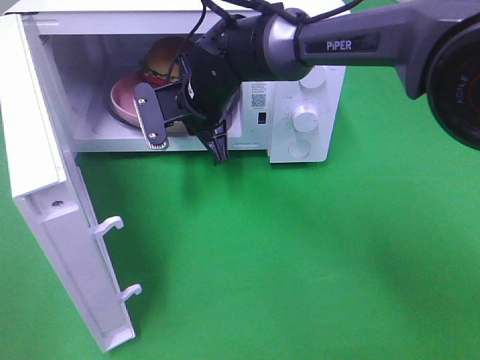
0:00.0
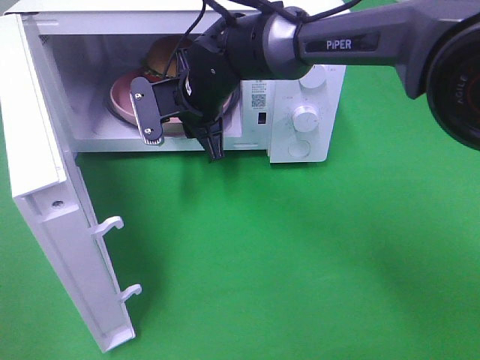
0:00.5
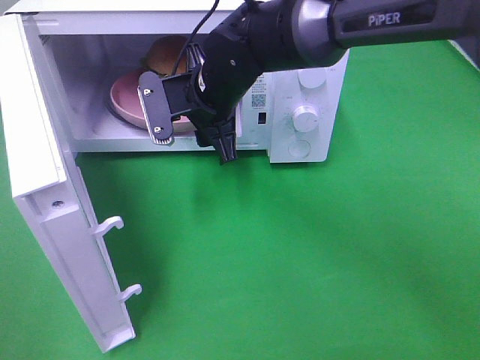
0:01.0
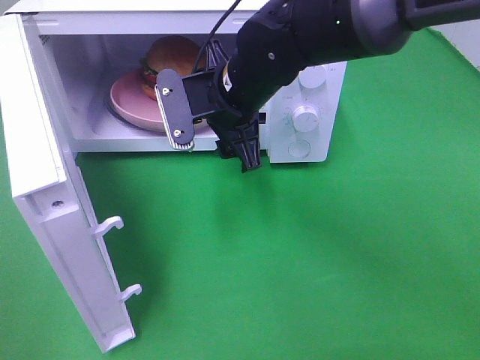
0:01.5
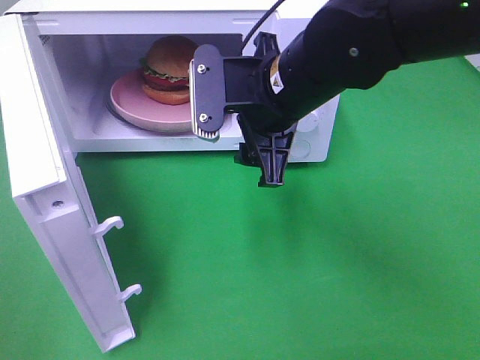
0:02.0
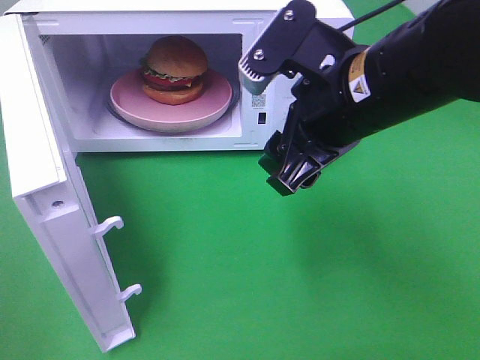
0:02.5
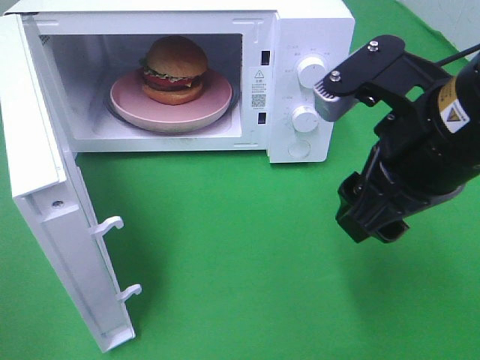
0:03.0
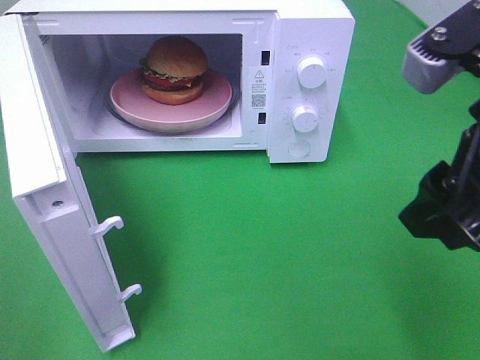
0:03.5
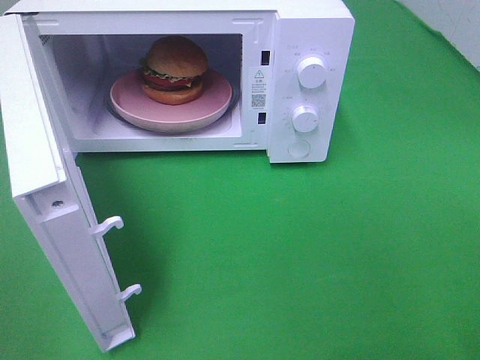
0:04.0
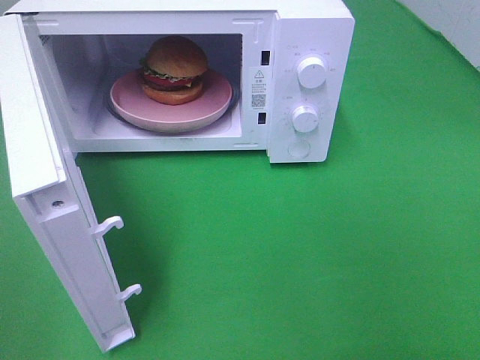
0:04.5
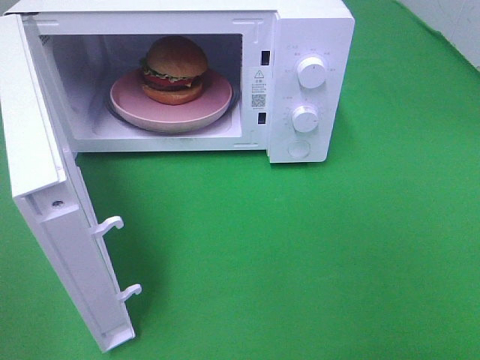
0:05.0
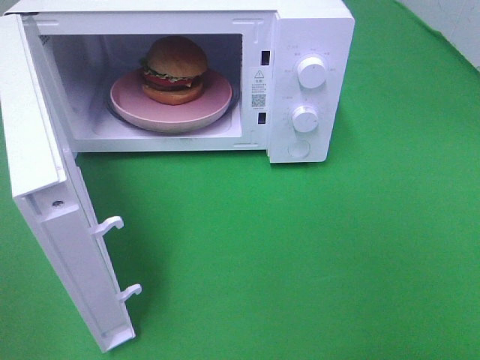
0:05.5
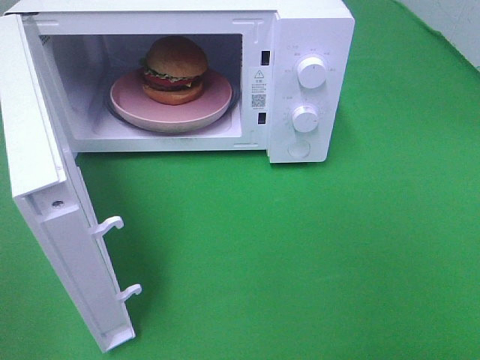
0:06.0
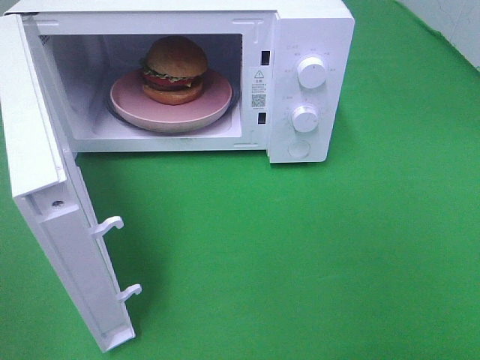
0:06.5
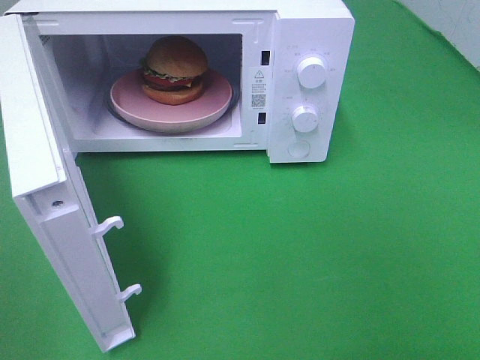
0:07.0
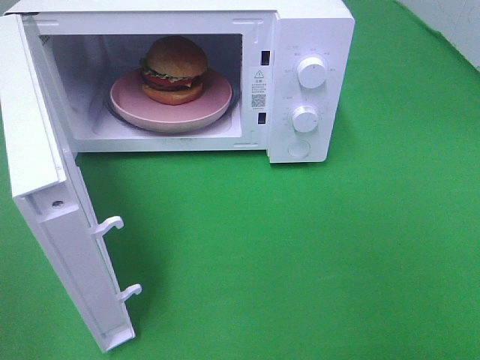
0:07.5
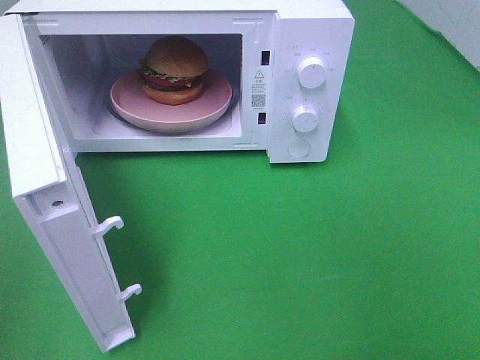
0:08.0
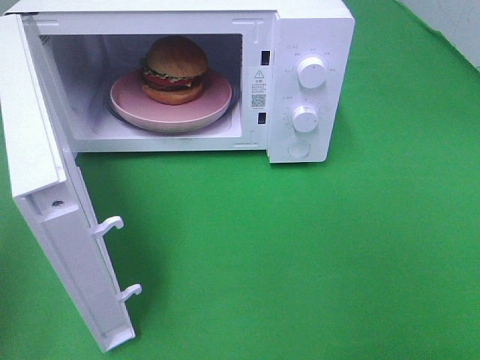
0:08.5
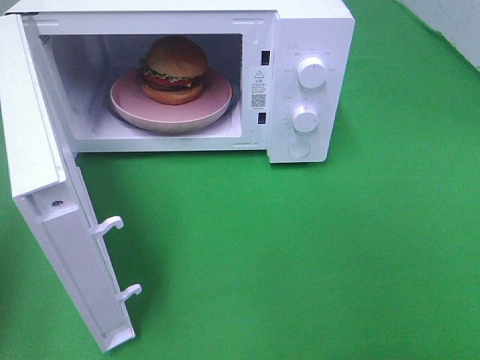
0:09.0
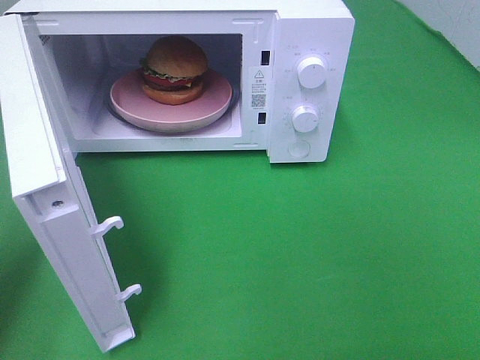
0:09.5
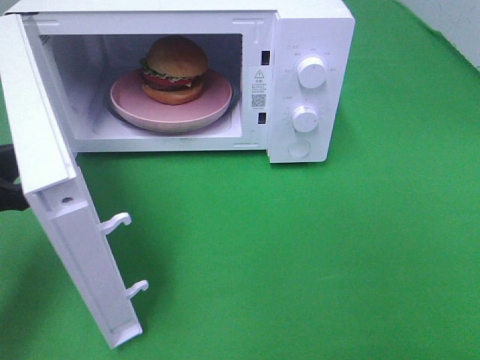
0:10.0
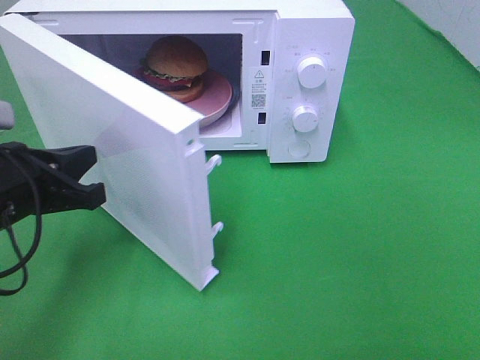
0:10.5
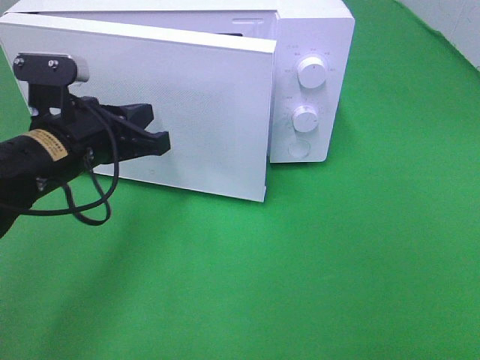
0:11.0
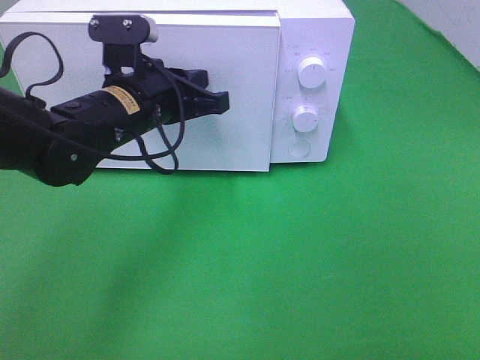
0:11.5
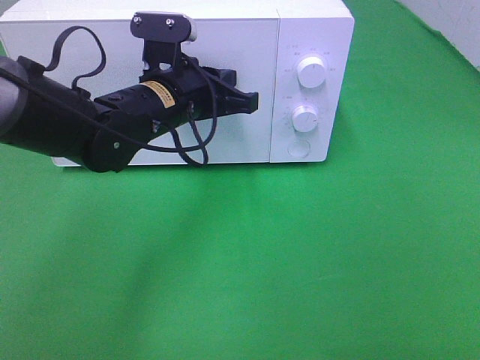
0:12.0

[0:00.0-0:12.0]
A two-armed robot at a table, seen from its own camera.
Task of the whole recording: Heat the burger.
0:00.0 to 0:02.0: The right gripper travels backward, to the right and upward by roughly 15 cm, and opens its fingers.
0:02.0 to 0:04.0: The right gripper shifts about 25 cm to the right and backward.
0:08.0 to 0:10.0: The left gripper is displaced forward and downward by about 25 cm.
0:10.0 to 0:12.0: The left gripper heads to the right and forward, covering roughly 25 cm.

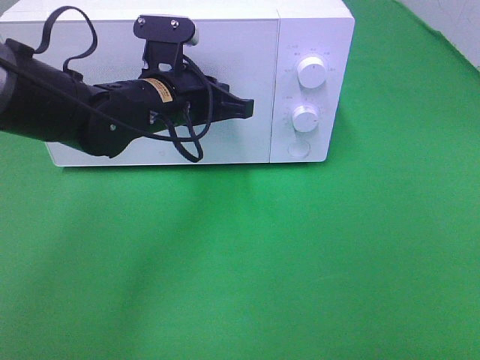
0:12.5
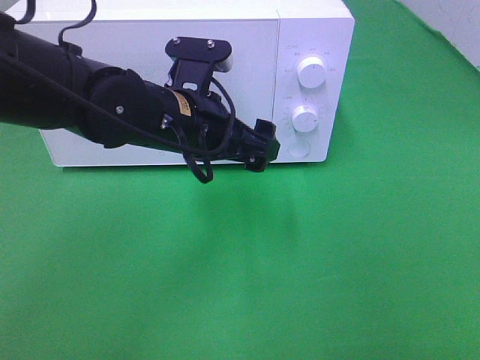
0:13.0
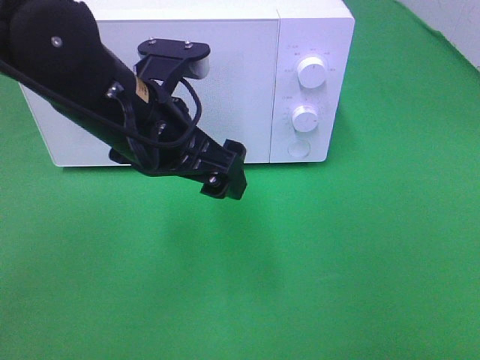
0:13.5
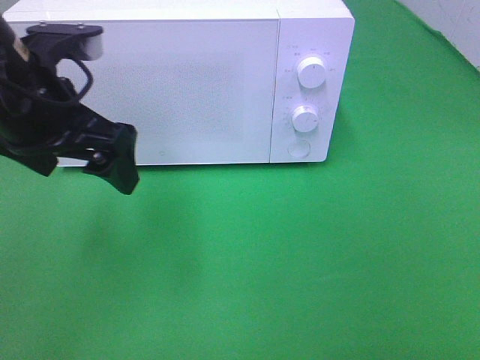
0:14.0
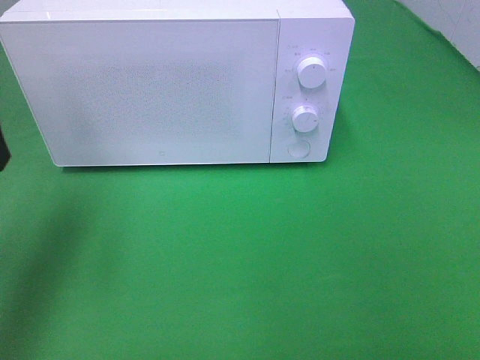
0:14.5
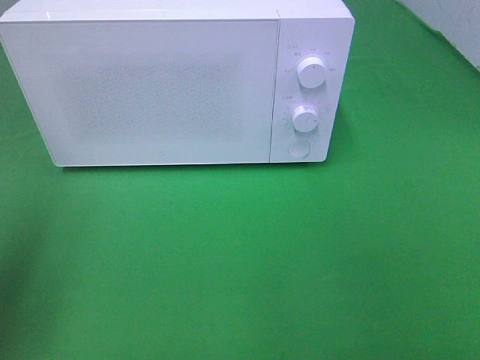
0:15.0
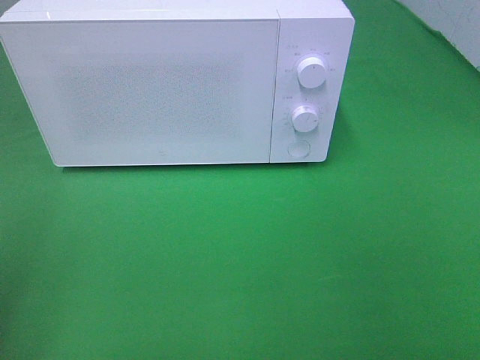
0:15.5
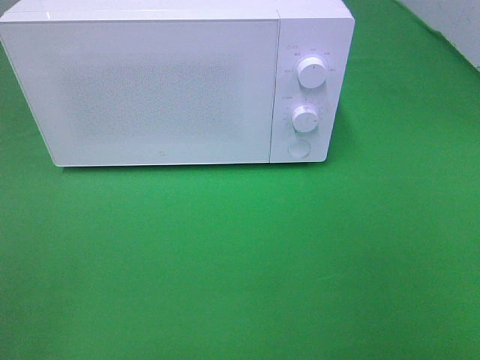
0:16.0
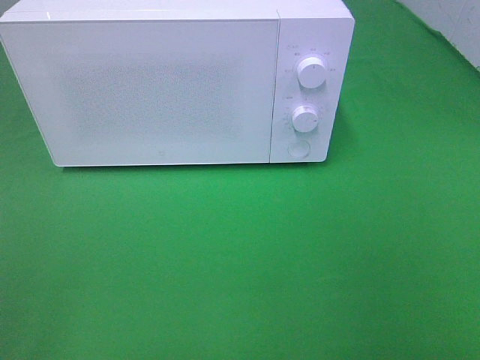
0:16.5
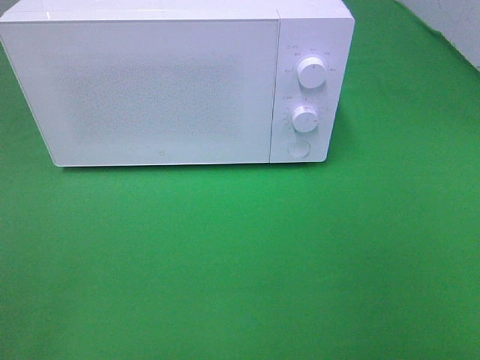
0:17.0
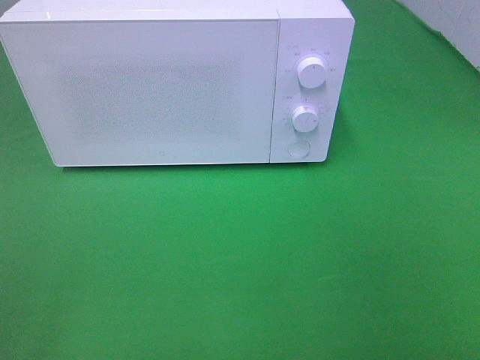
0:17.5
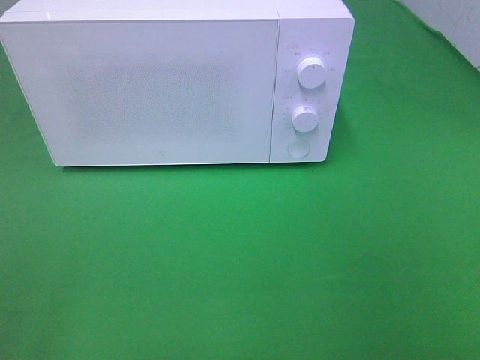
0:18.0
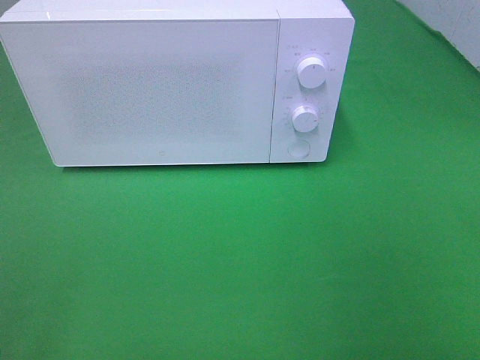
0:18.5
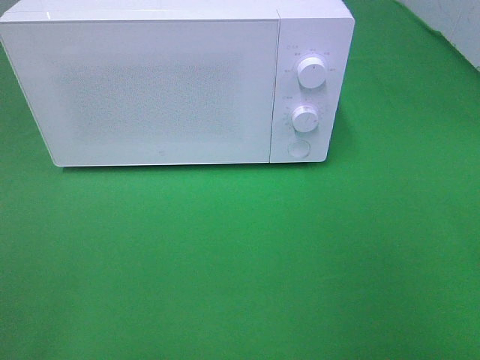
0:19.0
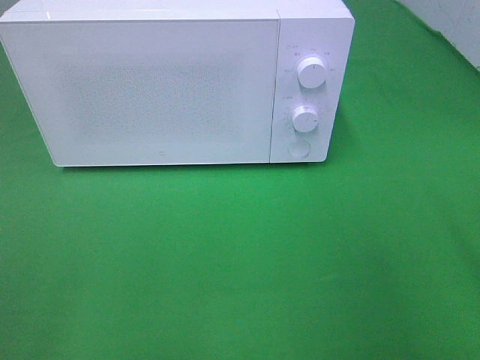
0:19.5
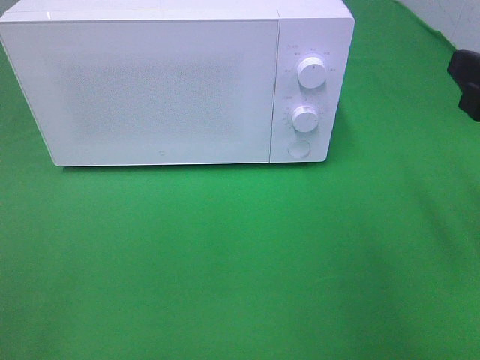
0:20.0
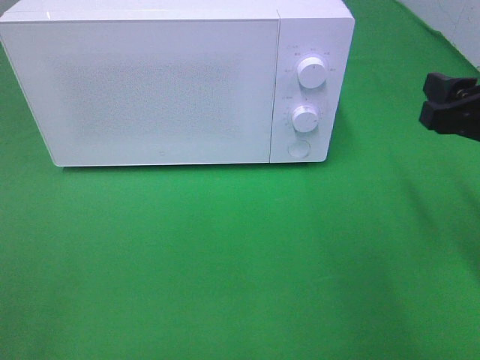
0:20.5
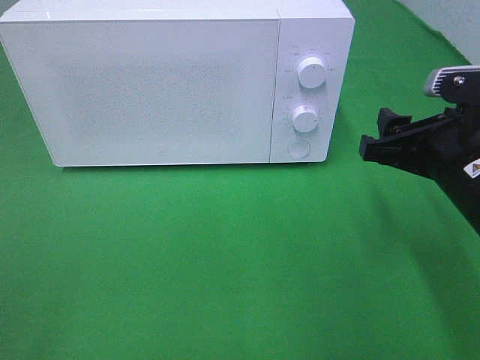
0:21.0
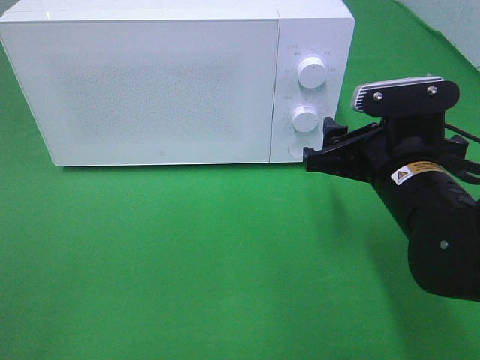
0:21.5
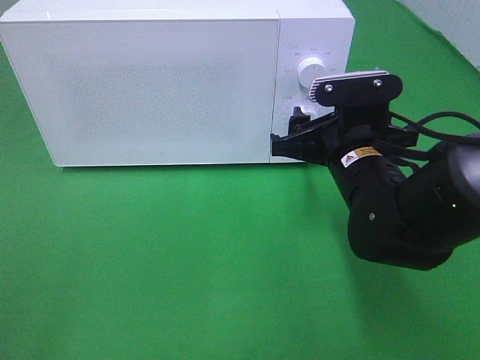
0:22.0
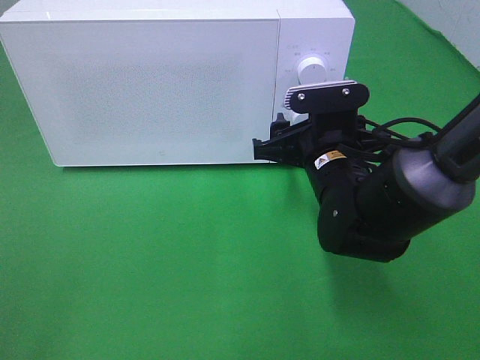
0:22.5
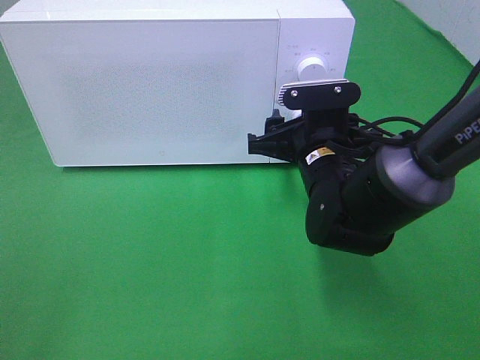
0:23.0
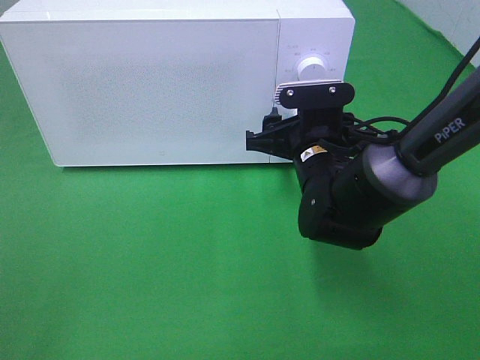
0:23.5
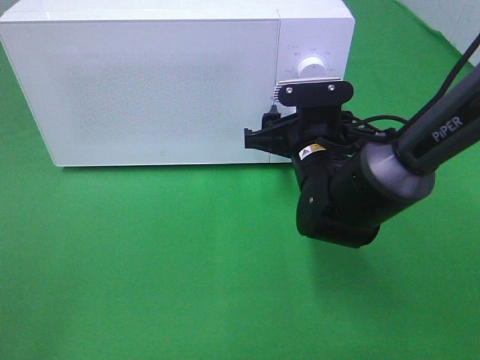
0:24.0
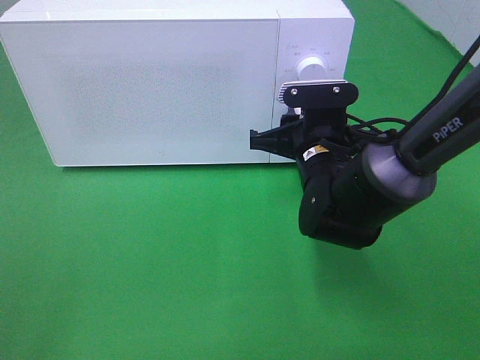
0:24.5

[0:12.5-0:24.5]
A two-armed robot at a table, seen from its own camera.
Task of the whole recording: Heat the burger.
0:12.5 to 0:14.5: The left gripper goes some 25 cm to the left, upward and backward, and opens its fingers.
0:14.5 to 0:16.5: The left gripper goes about 25 cm backward.
0:18.5 to 0:20.5: The right gripper shifts approximately 20 cm forward and downward.
0:20.5 to 0:22.5: The right gripper goes approximately 20 cm to the left, downward and forward.
0:22.5 to 0:24.5: The right gripper closes its fingers.

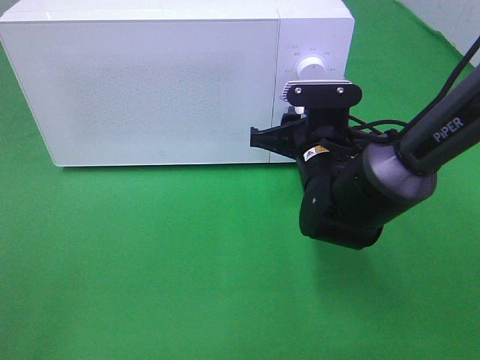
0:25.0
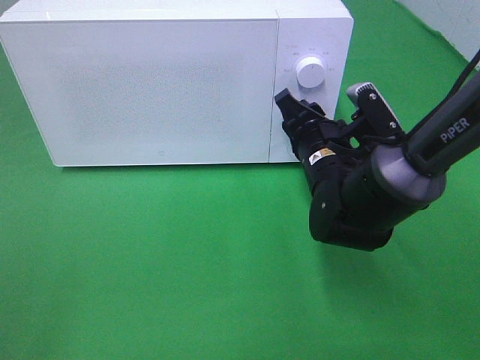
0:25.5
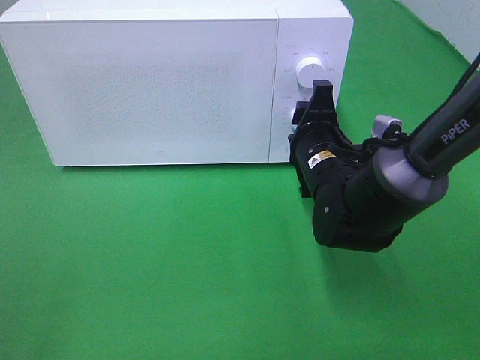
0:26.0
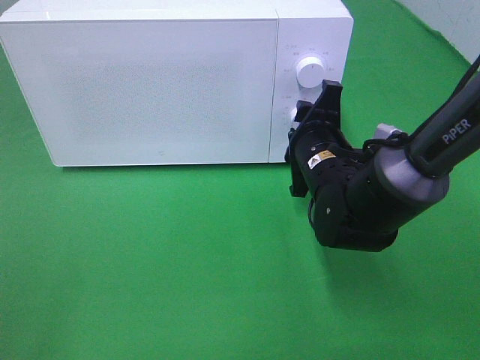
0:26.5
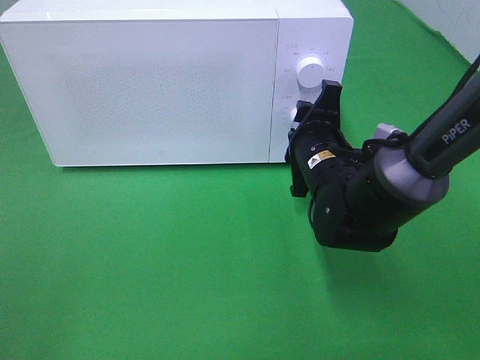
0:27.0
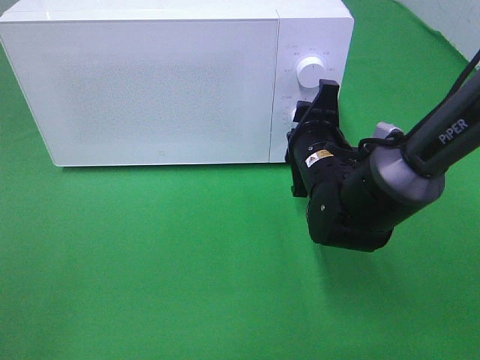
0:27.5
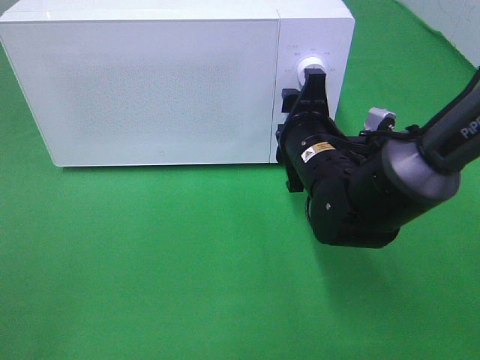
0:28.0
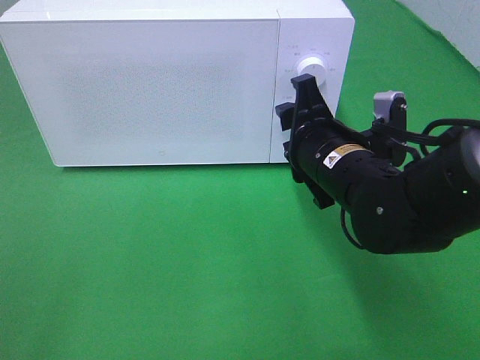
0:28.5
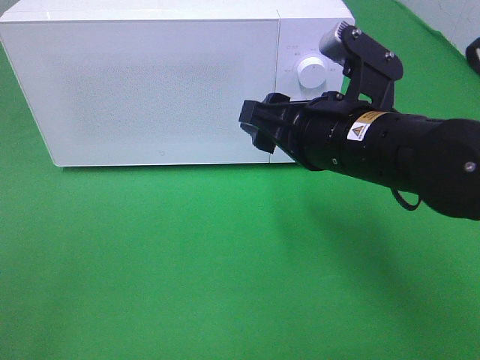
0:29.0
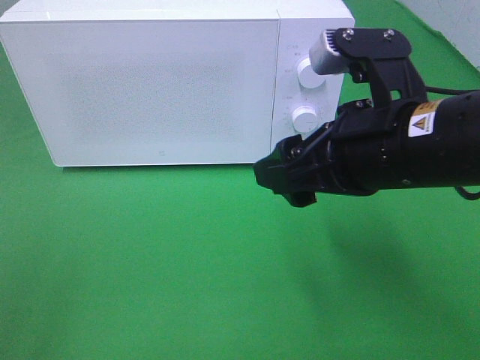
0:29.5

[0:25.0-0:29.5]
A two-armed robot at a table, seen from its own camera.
Task of the whole recording: Heat the burger.
Step, 0:25.0 to 0:28.5: Right hand: twist timer button.
0:27.0 to 0:29.5: The right gripper goes roughly 20 cm upward and backward, and opens.
